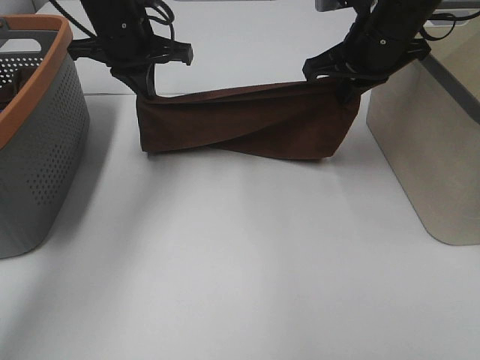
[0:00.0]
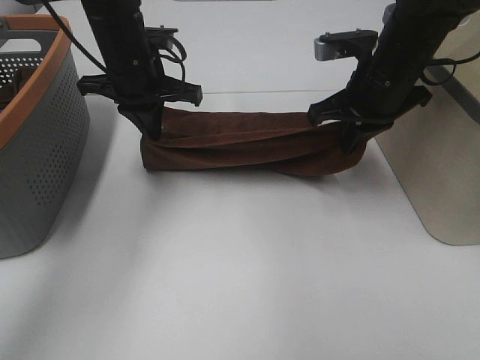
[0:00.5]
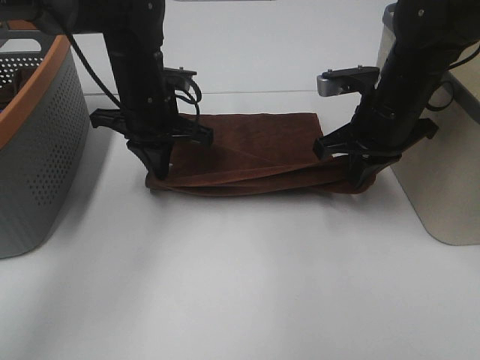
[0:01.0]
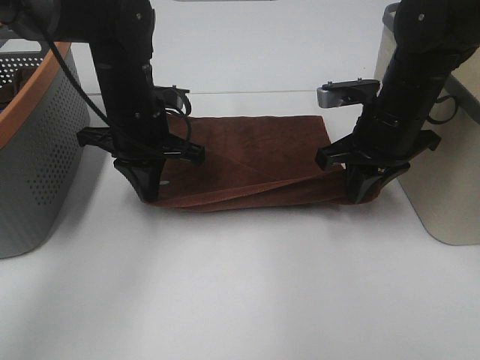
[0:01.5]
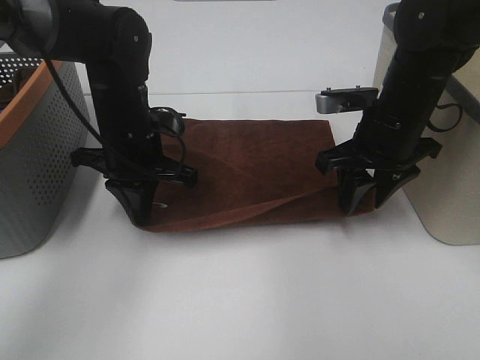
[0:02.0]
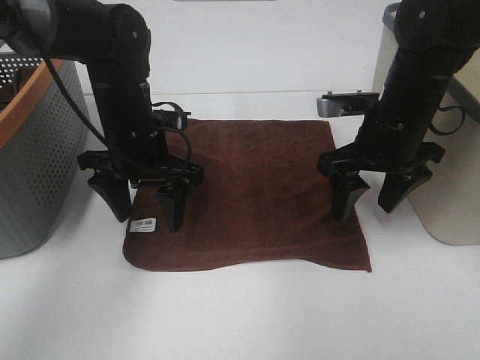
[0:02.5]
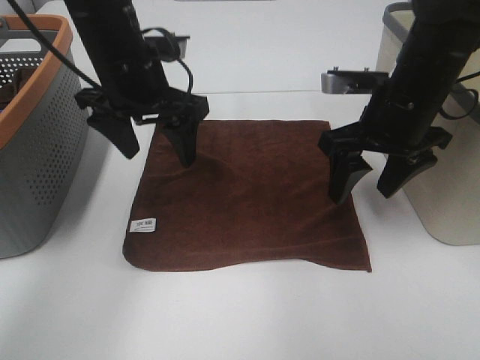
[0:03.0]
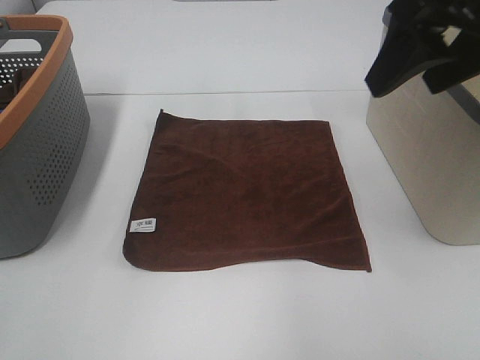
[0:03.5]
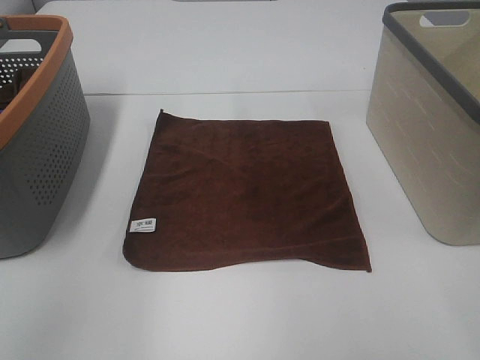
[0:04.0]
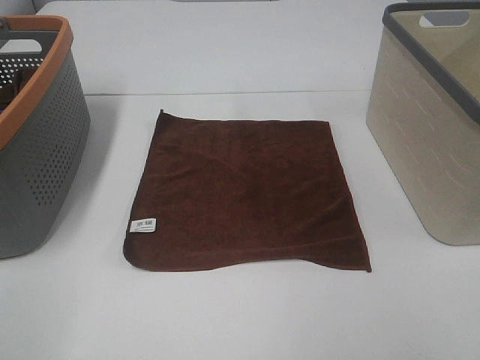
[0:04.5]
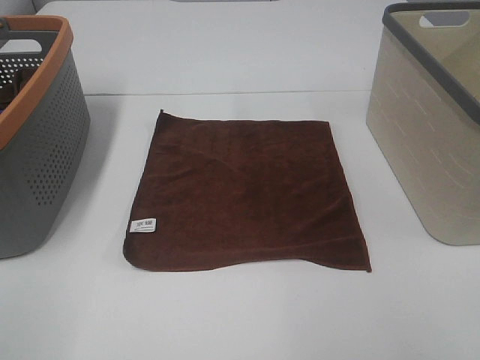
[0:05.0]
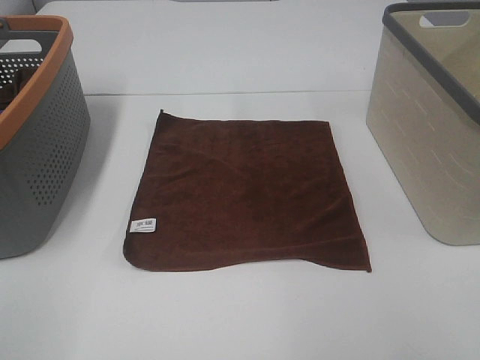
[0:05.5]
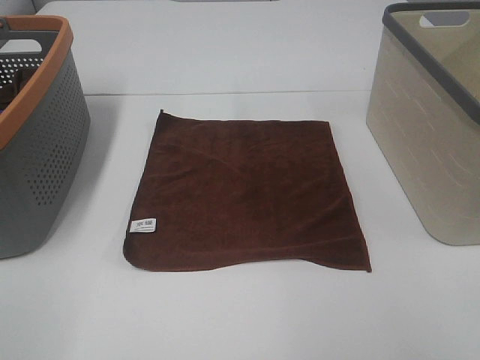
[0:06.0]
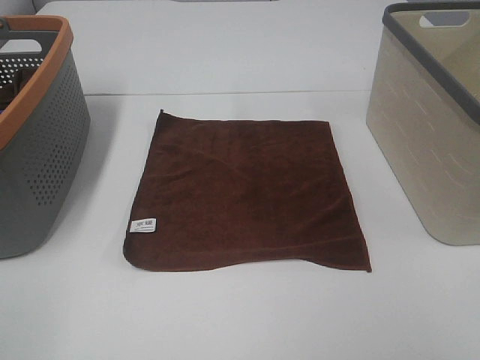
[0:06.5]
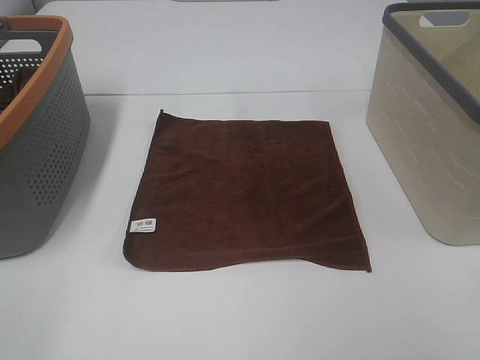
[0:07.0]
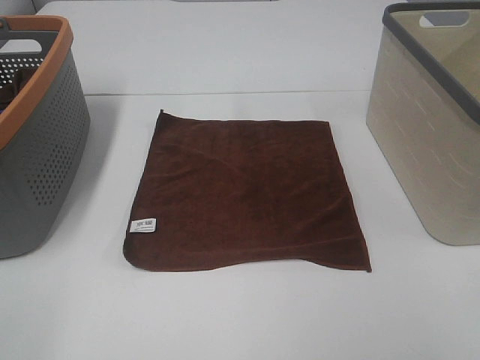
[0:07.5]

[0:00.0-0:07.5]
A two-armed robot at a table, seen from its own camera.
Task of the whole recording: Remove the towel and place it.
0:00.0 to 0:02.0: The right gripper is displaced downward and backward by about 10 cm, and opens up; the left gripper goes about 15 cm backward and downward.
0:02.0 to 0:04.0: The left gripper heads upward, backward and to the left, covering some 35 cm, and opens; the right gripper moves backward and upward, approximately 30 cm.
0:04.0 to 0:05.5: The left gripper is displaced downward, backward and to the left by approximately 20 cm.

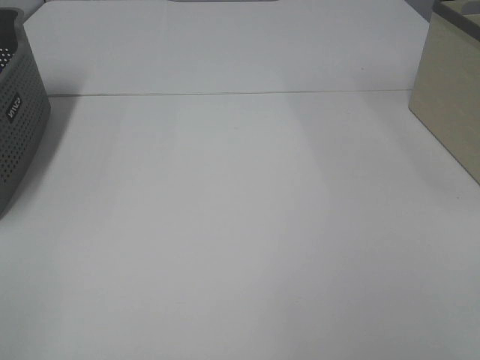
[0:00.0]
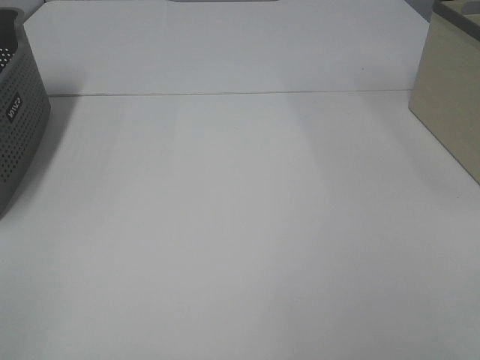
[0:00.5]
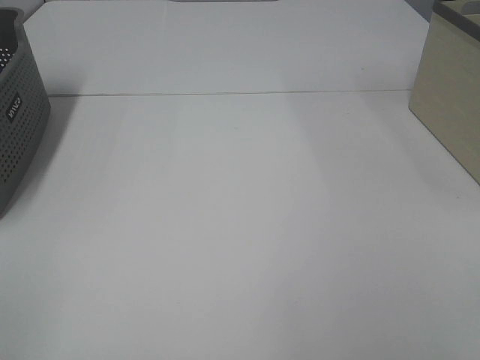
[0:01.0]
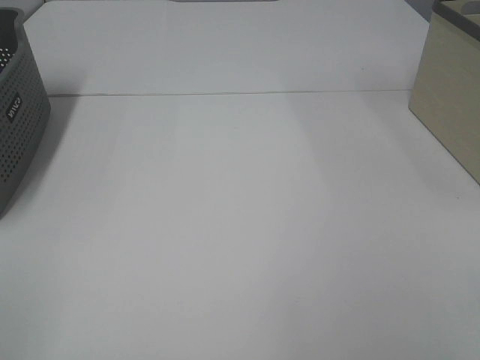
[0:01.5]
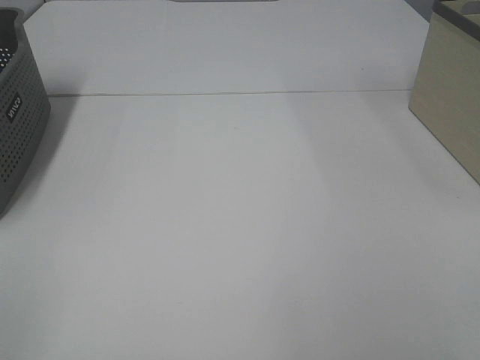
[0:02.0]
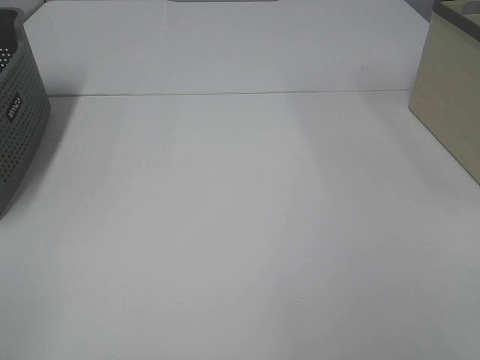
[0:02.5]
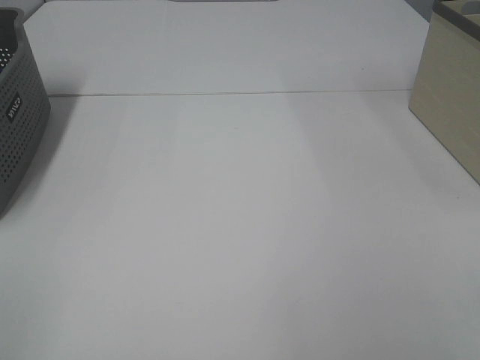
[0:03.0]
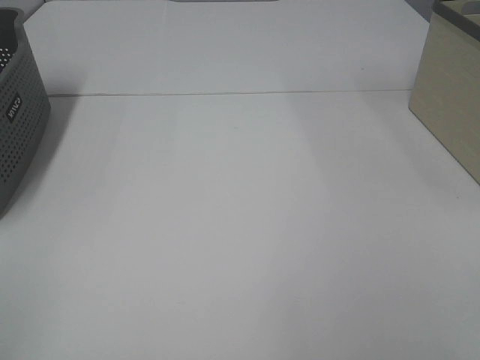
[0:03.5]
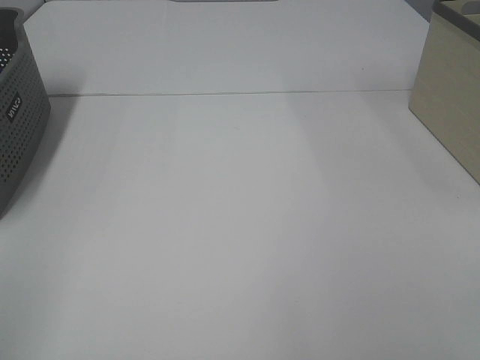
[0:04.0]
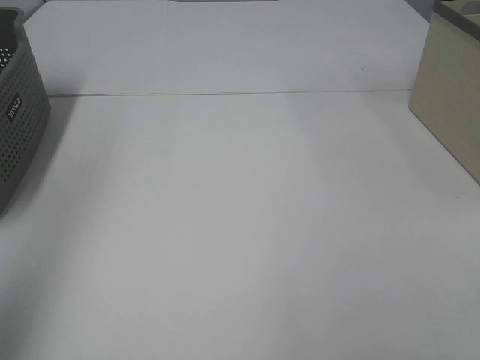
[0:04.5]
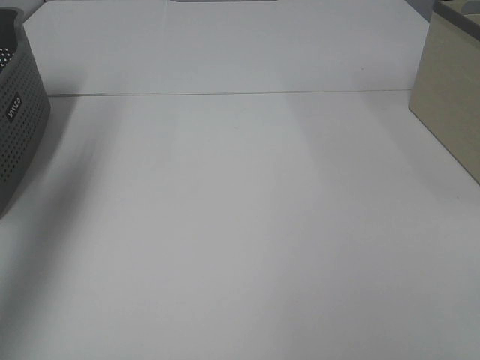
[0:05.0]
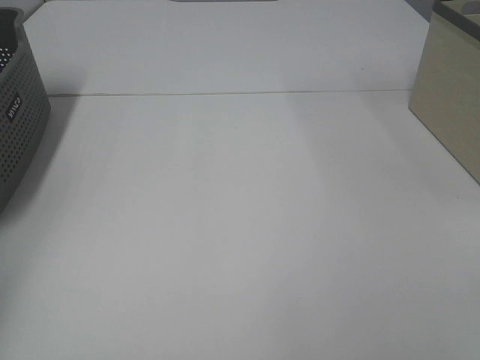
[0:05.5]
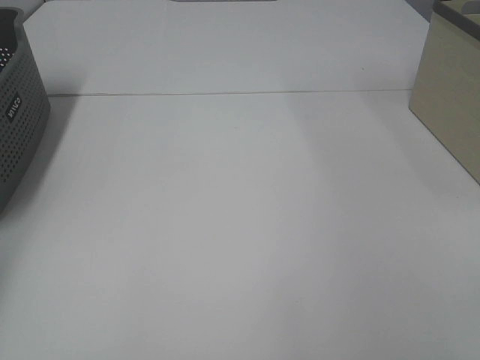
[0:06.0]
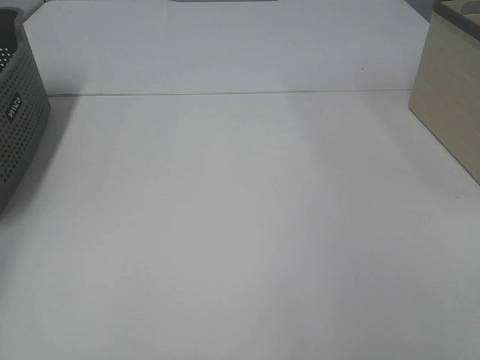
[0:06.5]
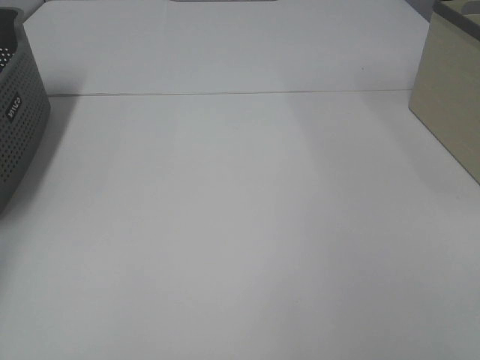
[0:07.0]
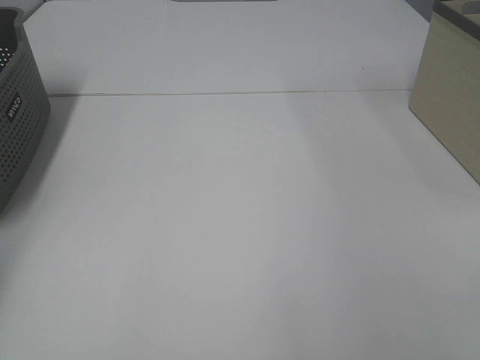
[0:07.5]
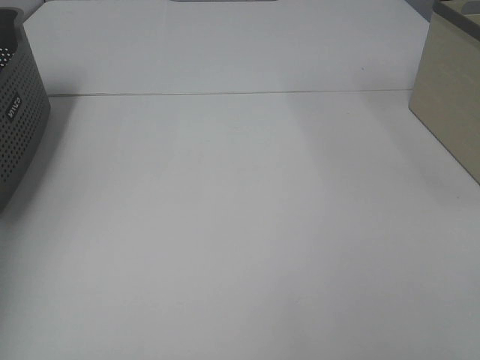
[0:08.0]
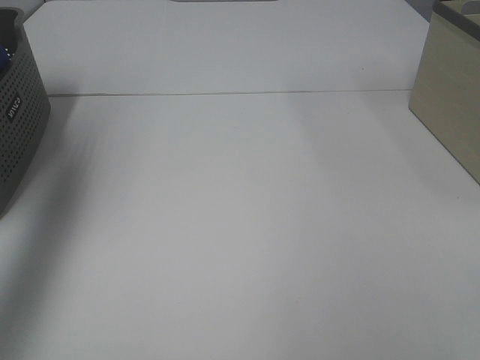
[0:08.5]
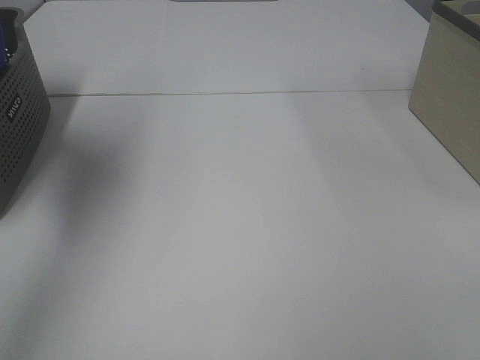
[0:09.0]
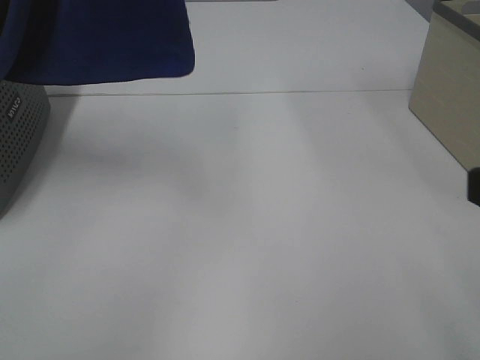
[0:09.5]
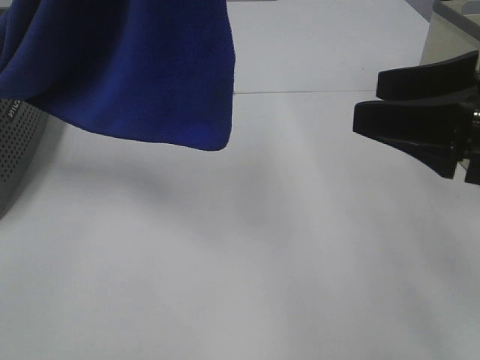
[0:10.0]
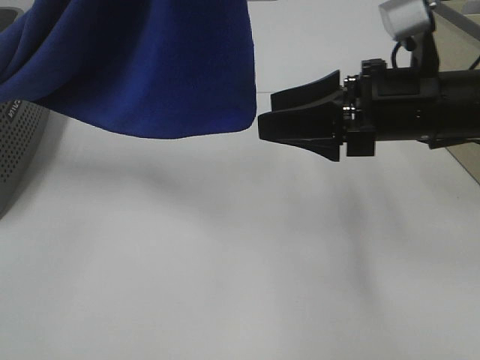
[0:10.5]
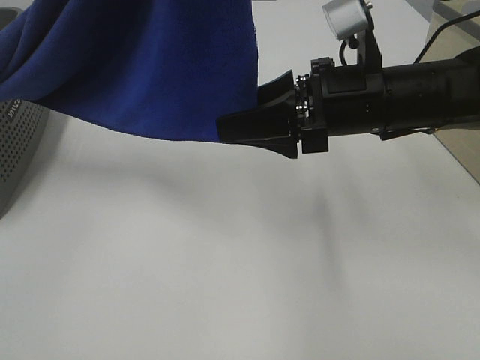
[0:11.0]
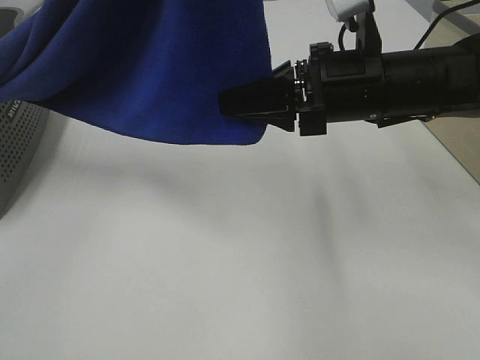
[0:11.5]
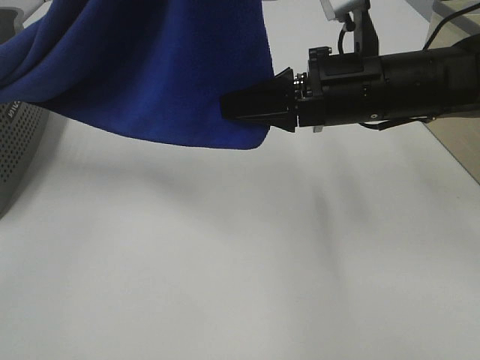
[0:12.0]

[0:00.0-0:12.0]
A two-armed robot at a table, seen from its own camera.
Task of the whole recording: Remove the towel and place it.
0:00.0 to 0:02.0: Both grippers stay about where they are.
0:08.0 to 0:10.0: The right gripper goes approximately 20 cm forward. Meanwhile the left gripper heads to the right, upward and backward, covering roughly 35 cm.
0:10.0 to 0:12.0: The right gripper travels forward and to the left by roughly 15 cm, and closes up.

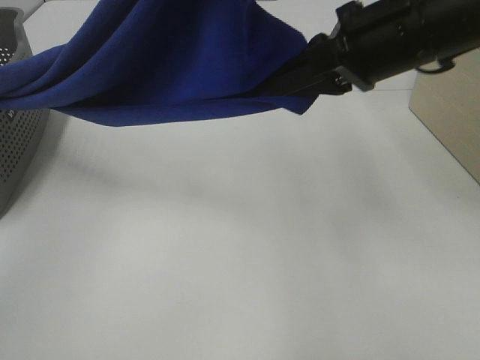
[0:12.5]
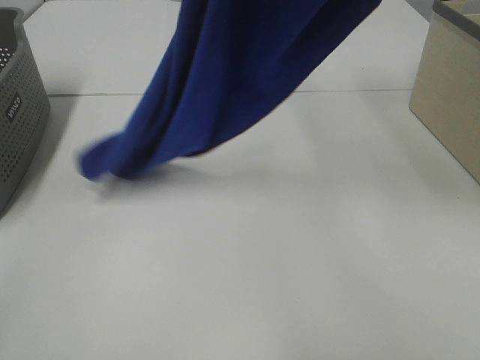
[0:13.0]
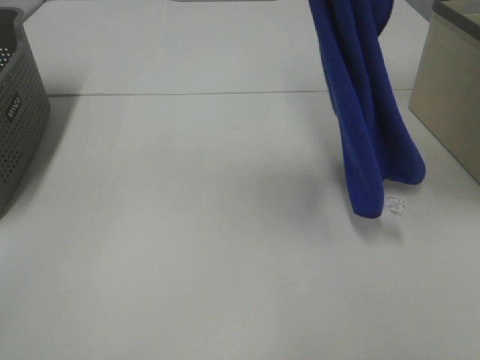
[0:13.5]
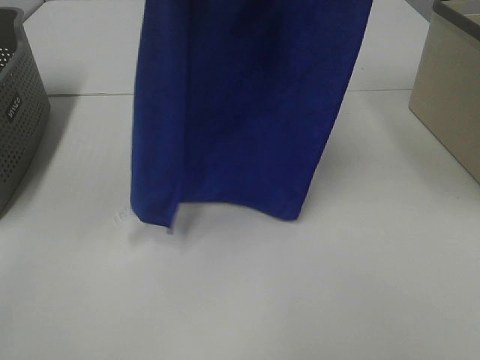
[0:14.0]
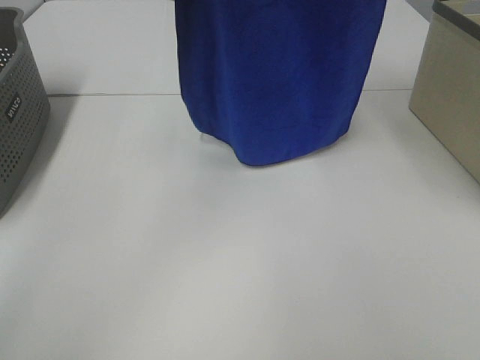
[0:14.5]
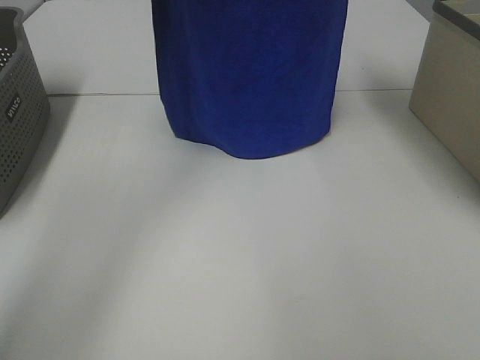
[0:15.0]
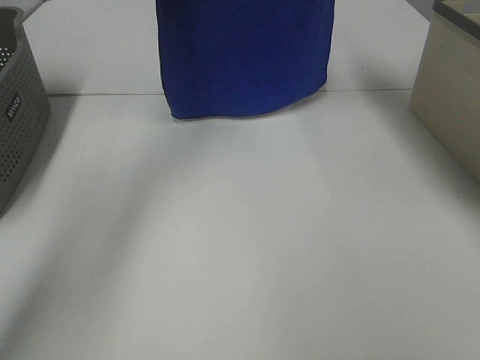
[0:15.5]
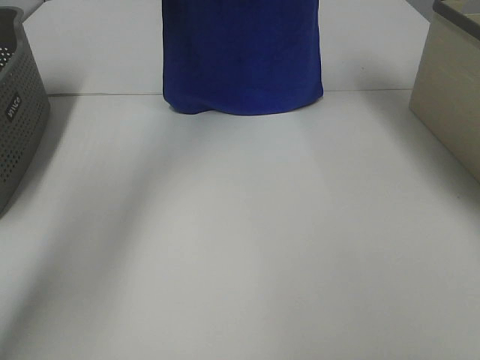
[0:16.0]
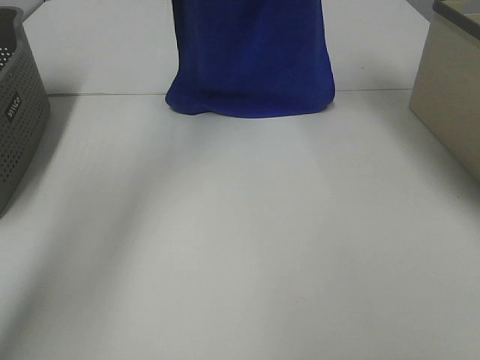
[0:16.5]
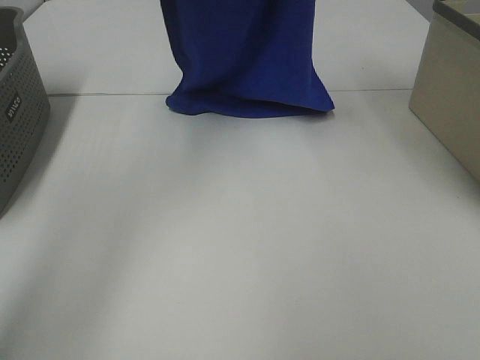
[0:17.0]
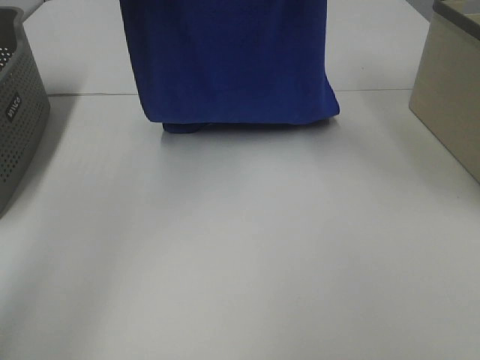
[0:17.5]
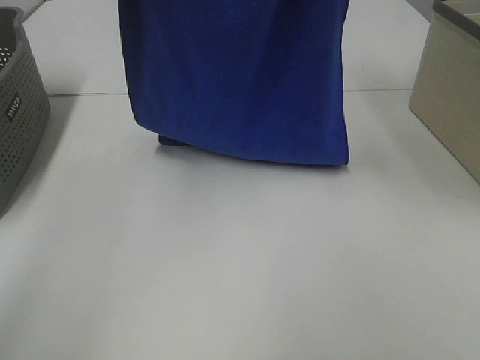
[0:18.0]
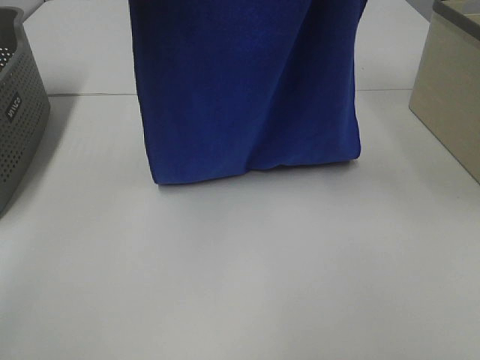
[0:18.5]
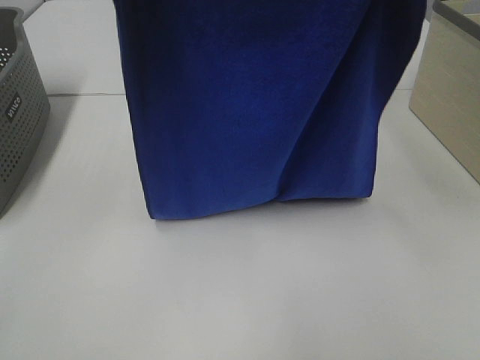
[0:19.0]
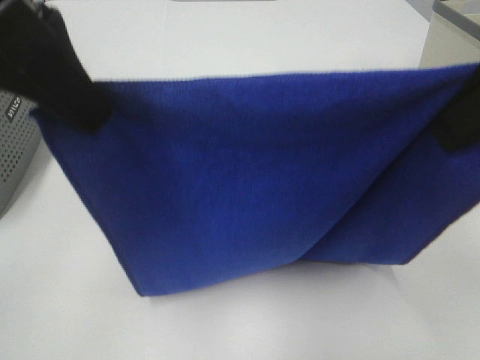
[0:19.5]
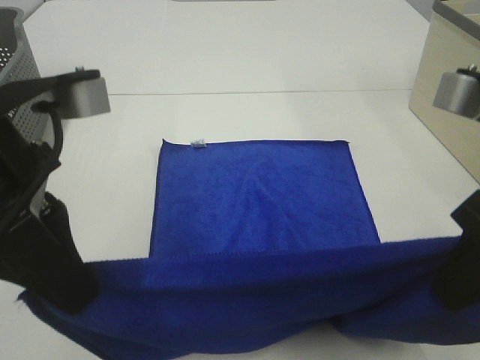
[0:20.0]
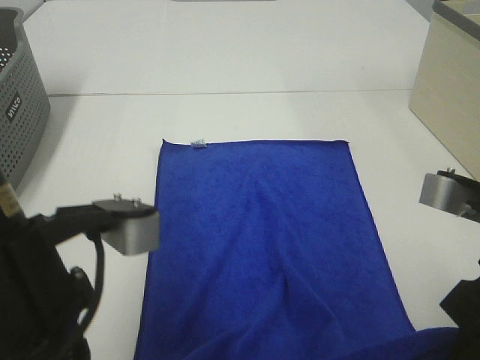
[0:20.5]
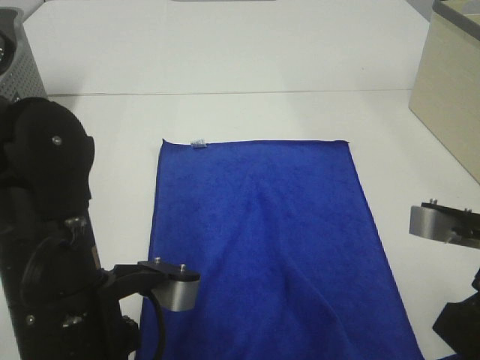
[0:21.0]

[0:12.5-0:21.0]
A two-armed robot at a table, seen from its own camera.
Task of the whole recording: Remove the towel and place it.
Step, 0:12.5 to 0:19.0: Left hand: spread the blue towel flat on the table.
Step, 0:12.5 to 0:19.0: Right hand: spread the blue towel flat on the table.
0:12.5 to 0:14.5: The right gripper travels upward by about 20 cm. Meanwhile the left gripper moves forward and to the left, about 10 cm.
0:14.5 to 0:16.5: The grippers both shift forward by about 10 cm.
0:16.5 to 0:19.0: Both grippers travel together backward, roughly 25 cm.
0:19.0 to 0:21.0: Both grippers move downward and backward, roughly 30 cm.
